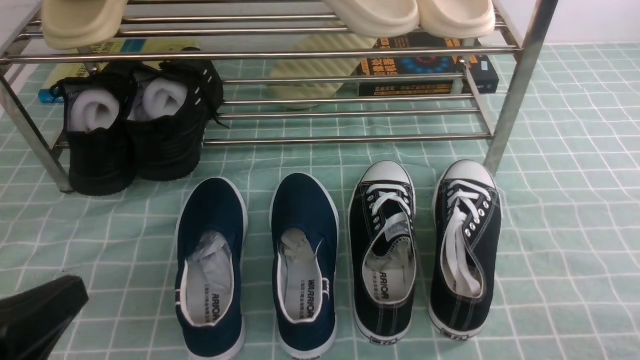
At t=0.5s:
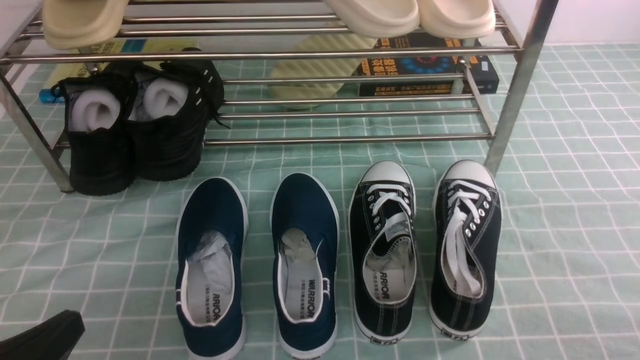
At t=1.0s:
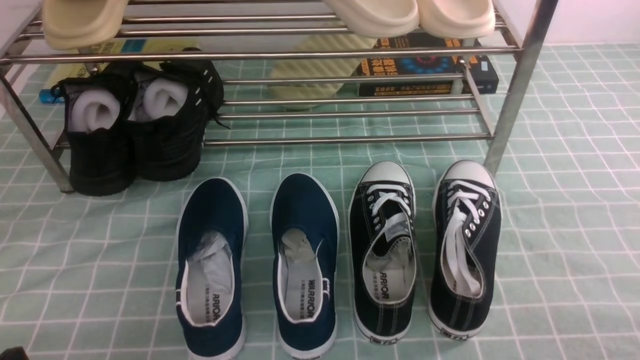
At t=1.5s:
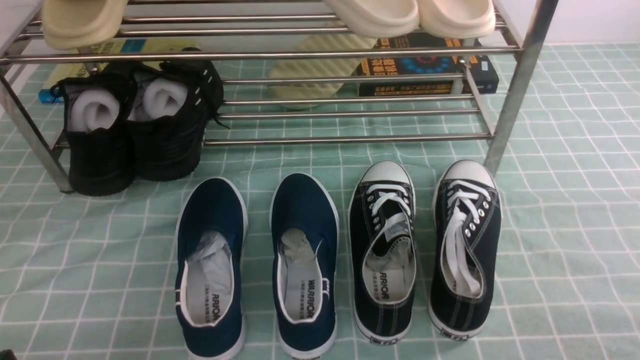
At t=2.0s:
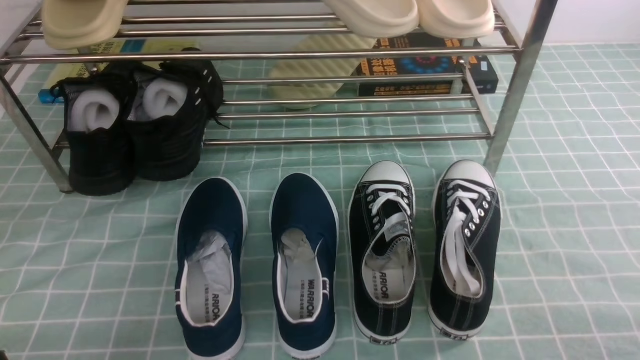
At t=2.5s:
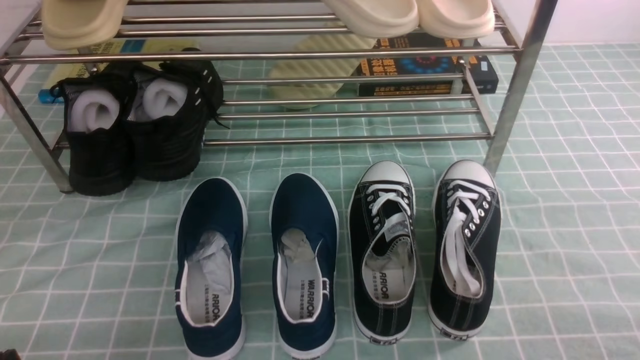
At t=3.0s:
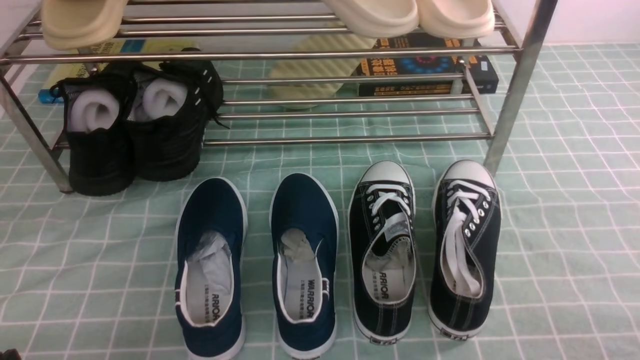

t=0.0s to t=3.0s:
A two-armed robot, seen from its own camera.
t=0.0s to t=1.5s: The left gripper is displaced downward by approximately 10 cm.
t=1.5s to t=3.0s: Both grippers stay about where they are.
